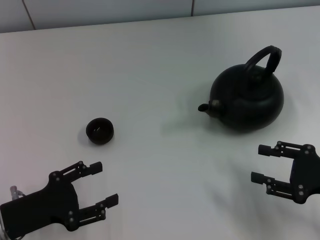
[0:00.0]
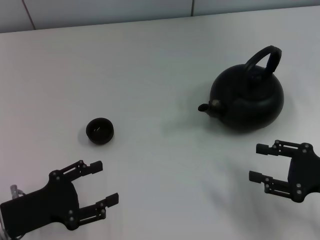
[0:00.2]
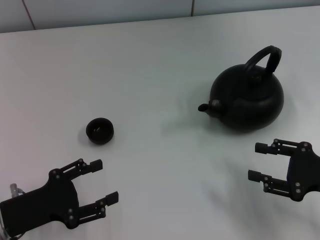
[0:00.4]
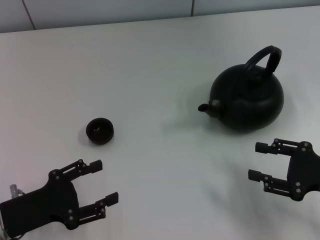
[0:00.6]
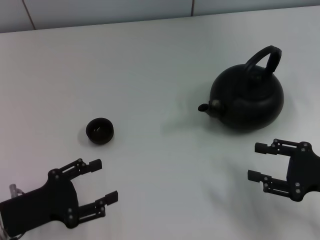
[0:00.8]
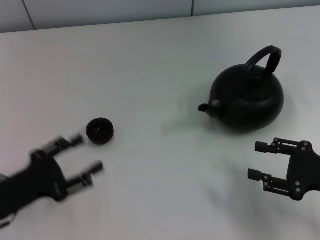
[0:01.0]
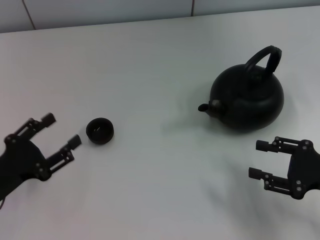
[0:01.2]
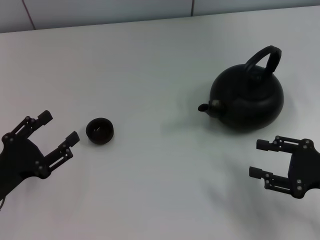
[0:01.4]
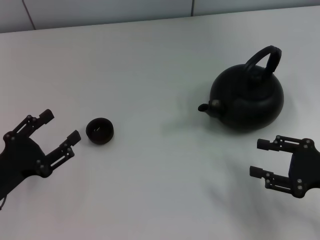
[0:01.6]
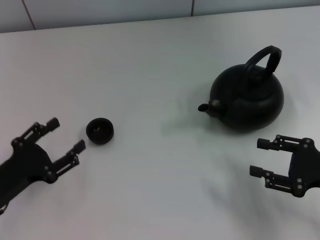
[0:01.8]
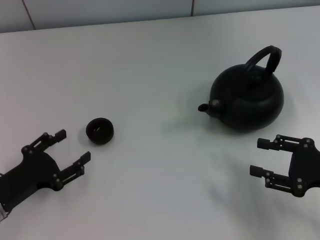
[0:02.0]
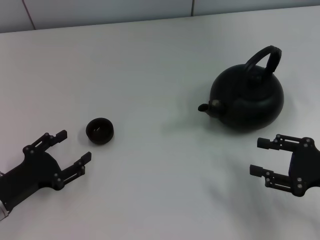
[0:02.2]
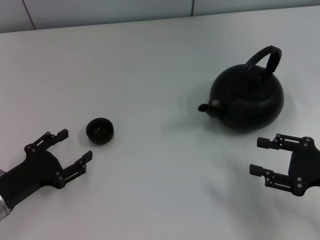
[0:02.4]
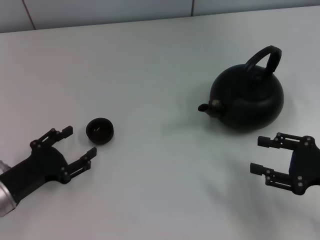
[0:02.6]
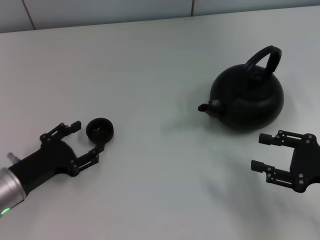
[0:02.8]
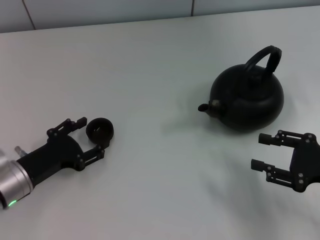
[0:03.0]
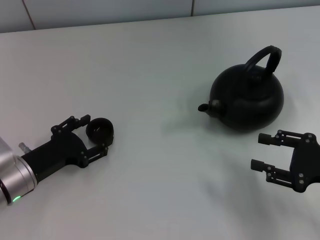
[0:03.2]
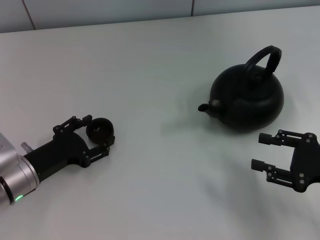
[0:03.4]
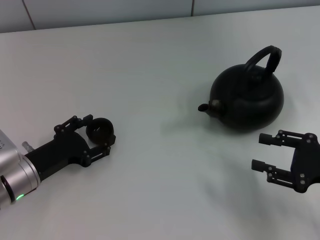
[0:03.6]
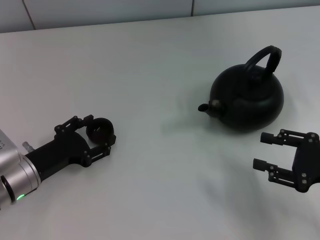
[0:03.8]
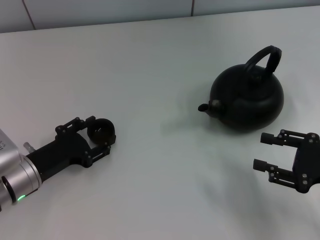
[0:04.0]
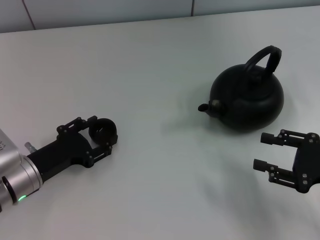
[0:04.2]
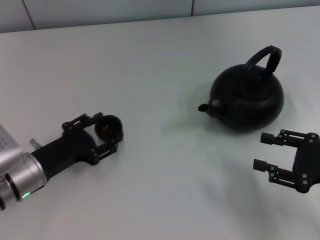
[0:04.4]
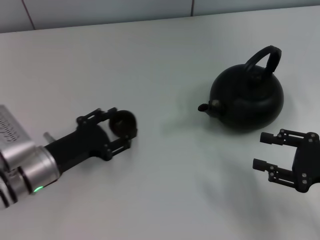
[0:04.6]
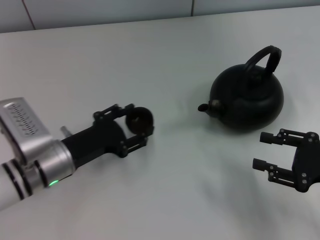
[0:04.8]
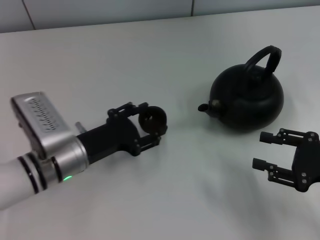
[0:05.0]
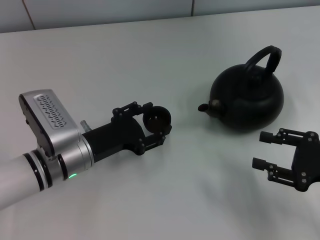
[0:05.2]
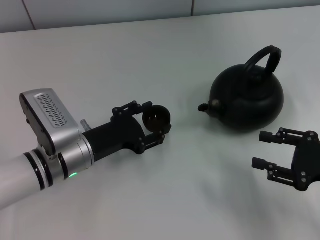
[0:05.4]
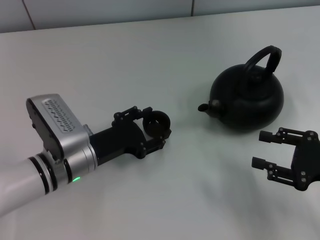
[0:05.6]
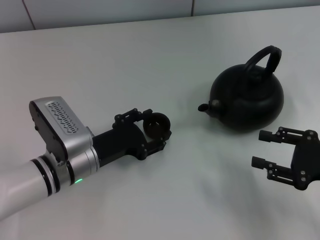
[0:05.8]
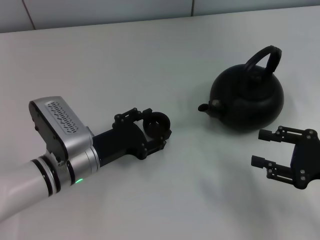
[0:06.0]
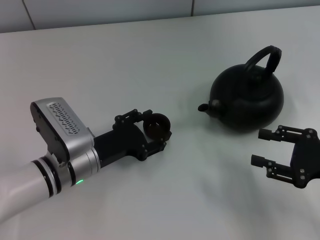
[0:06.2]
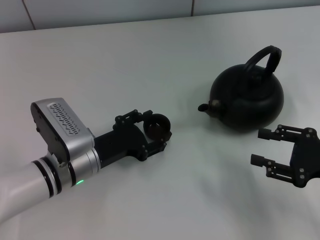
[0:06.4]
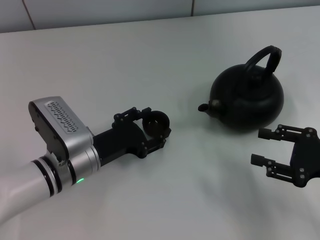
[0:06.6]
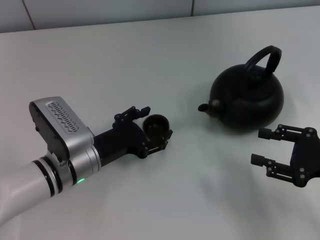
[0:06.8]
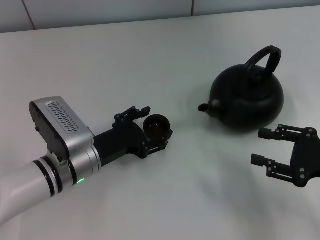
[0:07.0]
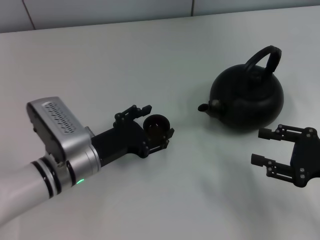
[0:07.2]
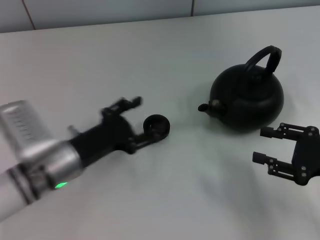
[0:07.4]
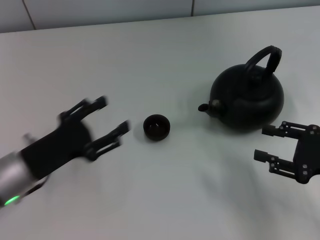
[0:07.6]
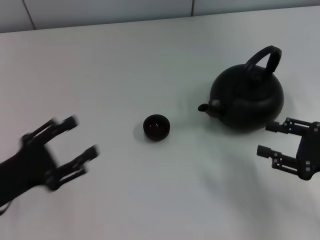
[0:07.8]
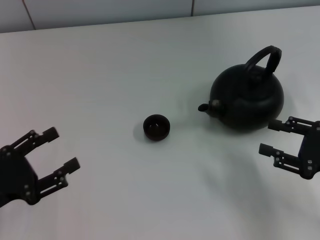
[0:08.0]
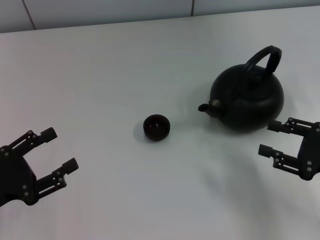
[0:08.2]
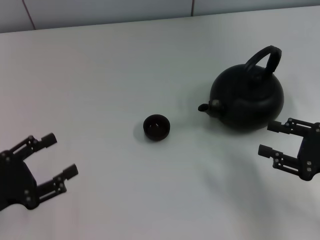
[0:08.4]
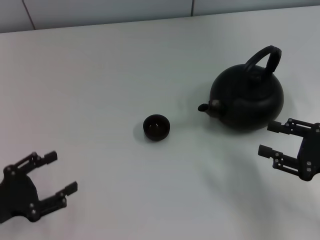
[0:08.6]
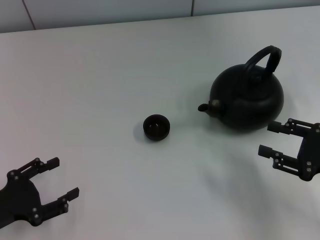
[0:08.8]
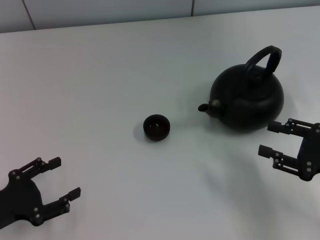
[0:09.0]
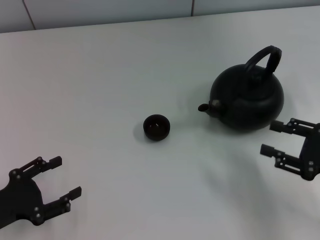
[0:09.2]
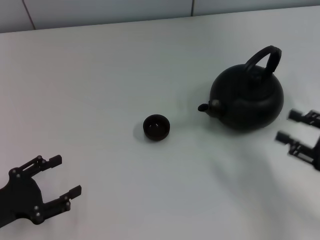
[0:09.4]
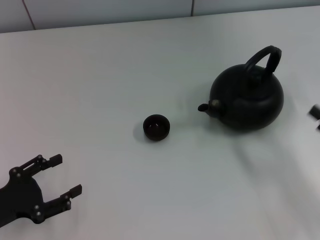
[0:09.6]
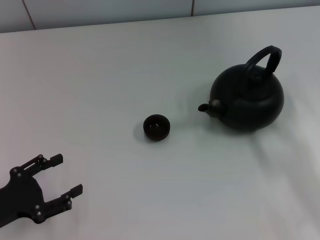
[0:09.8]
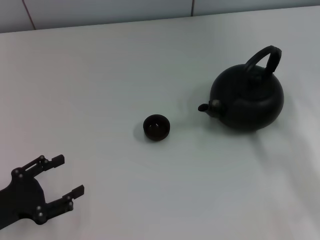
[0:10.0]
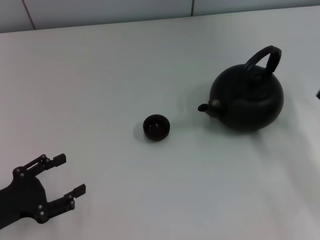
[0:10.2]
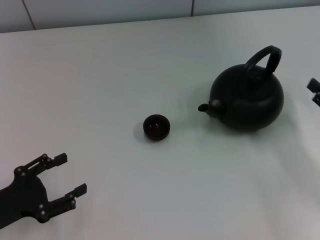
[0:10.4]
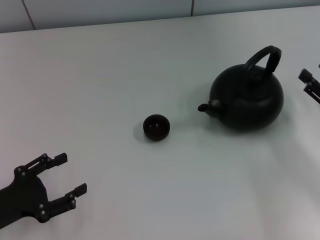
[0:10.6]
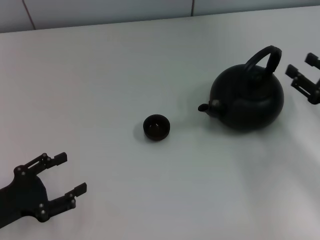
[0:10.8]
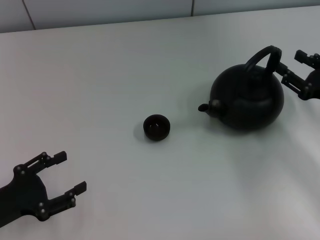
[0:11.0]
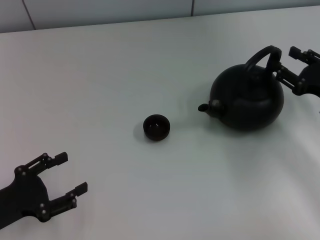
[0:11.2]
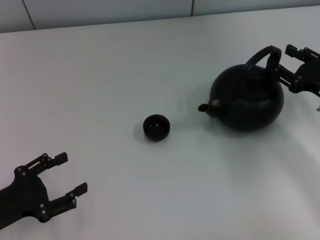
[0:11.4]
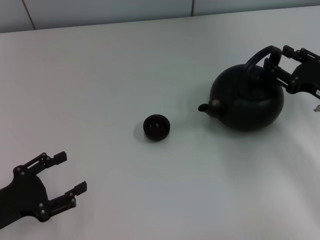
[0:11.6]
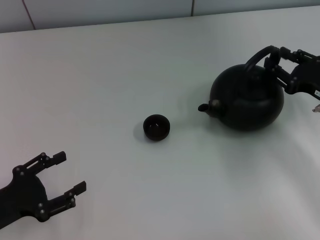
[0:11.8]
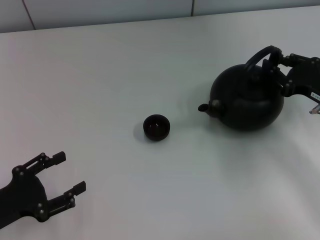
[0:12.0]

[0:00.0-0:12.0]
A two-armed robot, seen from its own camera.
Task of the whole recording: Grasp the handle of the teapot with one hand and pour tea into the teacup.
Step, 0:00.0 to 0:05.0: Pick up the teacup with the left gripper.
Step, 0:05.2 to 0:07.6: Place the teacup in the center of view with the left gripper.
0:01.6 to 0:03.0: The left gripper moves some 5 cm.
0:03.0 to 0:04.4: The grippers stay close to where they were, moving slightly.
0:04.4 to 0:06.0: The left gripper is displaced to the right by approximately 10 cm.
0:06.0 to 0:07.6: The left gripper moves to the left, roughly 10 cm.
0:07.6 to 0:09.0: The left gripper shifts about 10 cm to the left and backward.
0:10.4 to 0:12.0: The right gripper is displaced forward by roughly 10 cm.

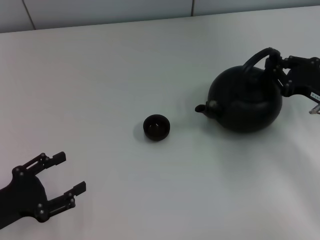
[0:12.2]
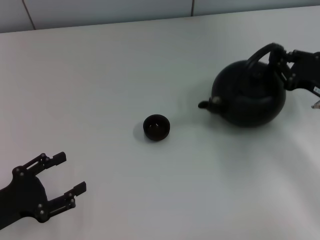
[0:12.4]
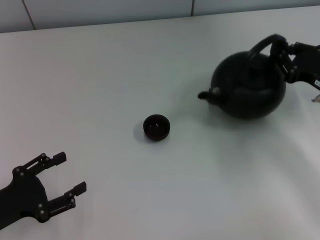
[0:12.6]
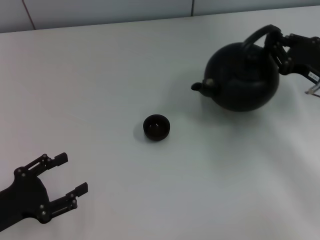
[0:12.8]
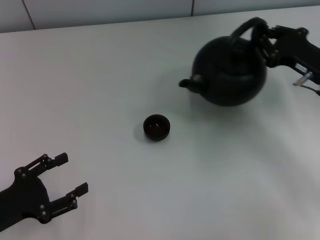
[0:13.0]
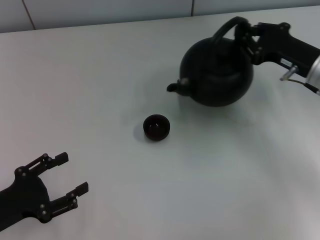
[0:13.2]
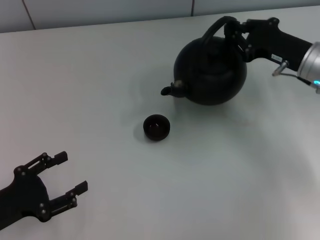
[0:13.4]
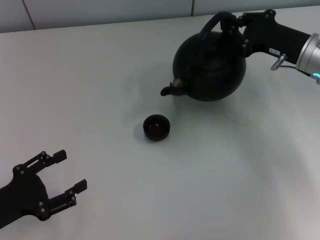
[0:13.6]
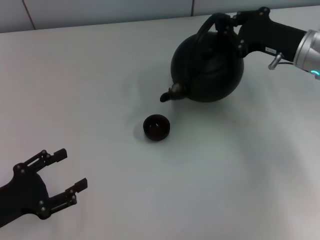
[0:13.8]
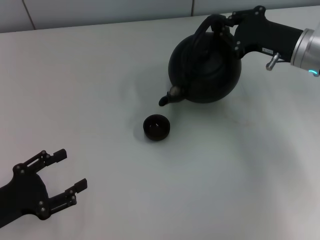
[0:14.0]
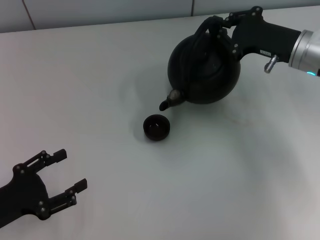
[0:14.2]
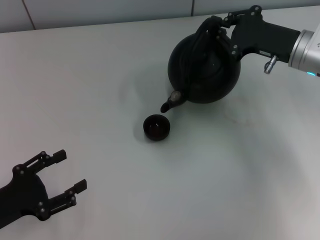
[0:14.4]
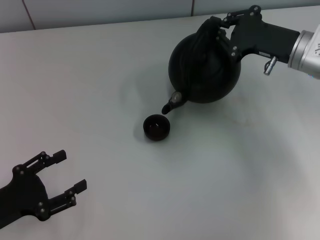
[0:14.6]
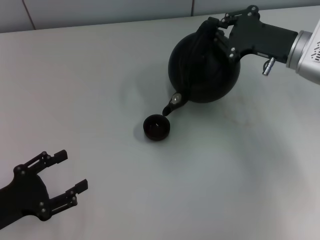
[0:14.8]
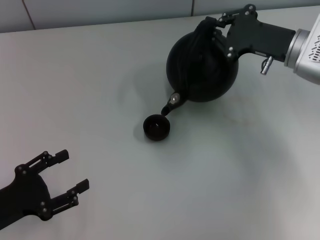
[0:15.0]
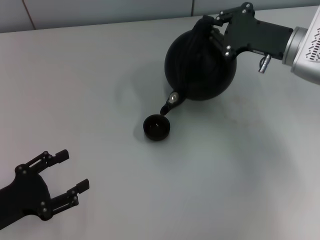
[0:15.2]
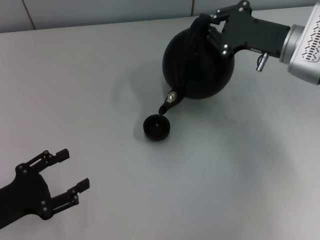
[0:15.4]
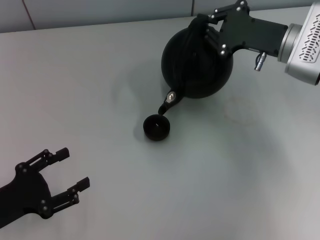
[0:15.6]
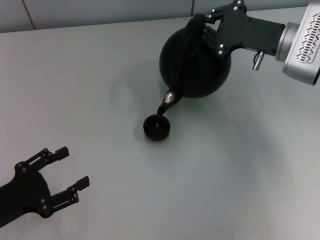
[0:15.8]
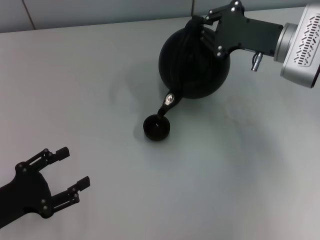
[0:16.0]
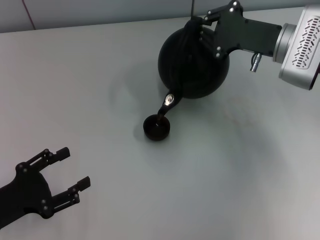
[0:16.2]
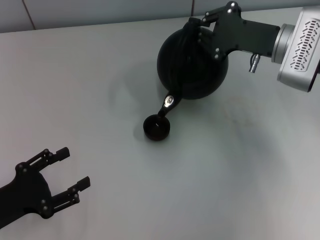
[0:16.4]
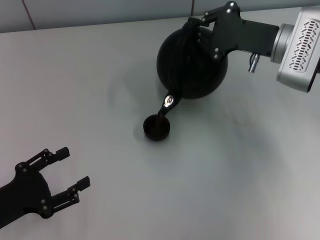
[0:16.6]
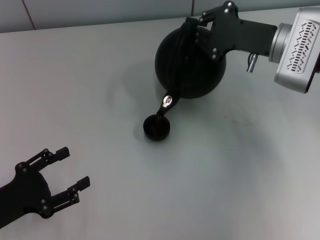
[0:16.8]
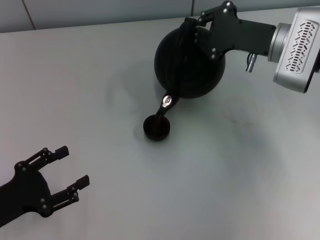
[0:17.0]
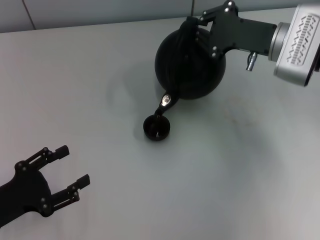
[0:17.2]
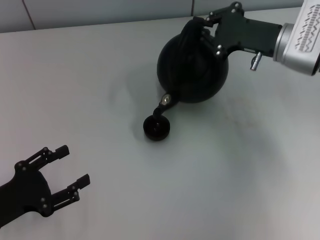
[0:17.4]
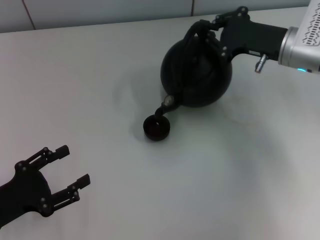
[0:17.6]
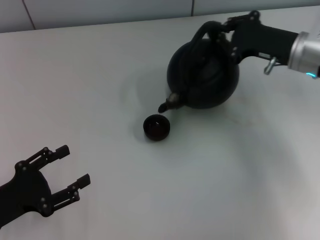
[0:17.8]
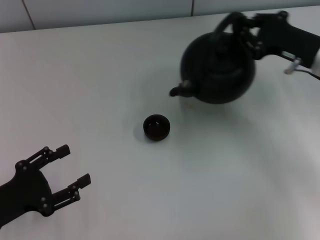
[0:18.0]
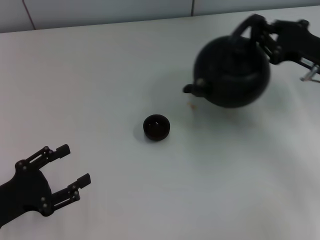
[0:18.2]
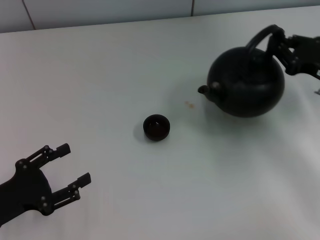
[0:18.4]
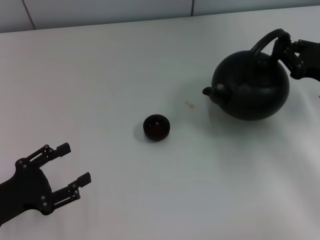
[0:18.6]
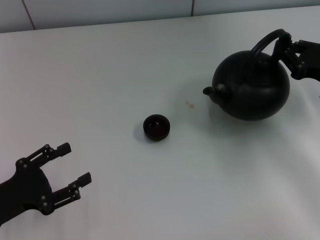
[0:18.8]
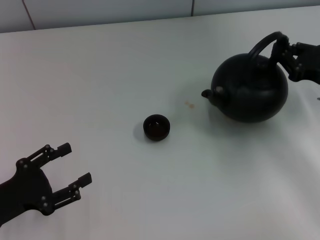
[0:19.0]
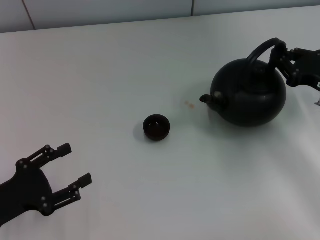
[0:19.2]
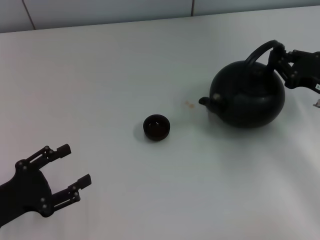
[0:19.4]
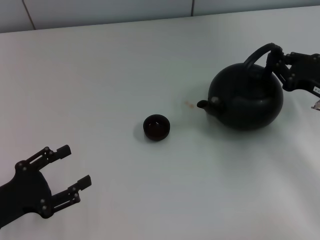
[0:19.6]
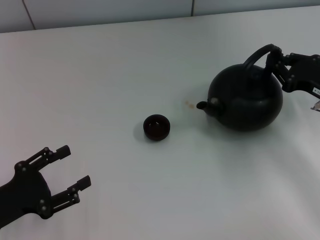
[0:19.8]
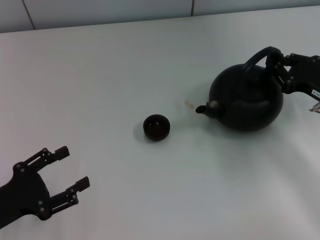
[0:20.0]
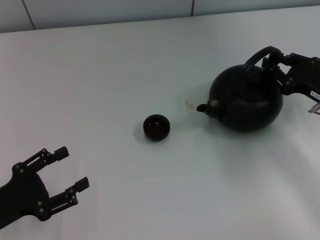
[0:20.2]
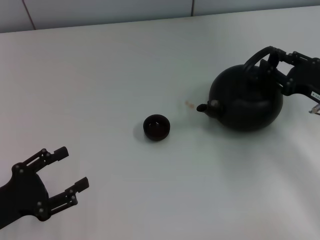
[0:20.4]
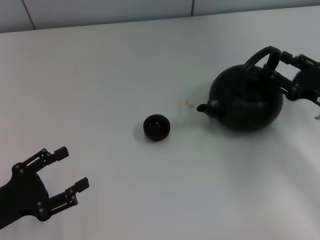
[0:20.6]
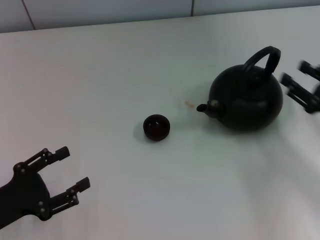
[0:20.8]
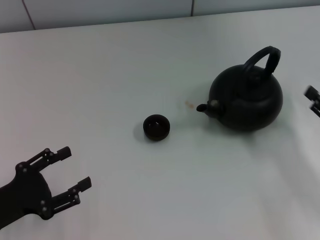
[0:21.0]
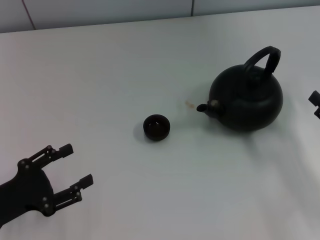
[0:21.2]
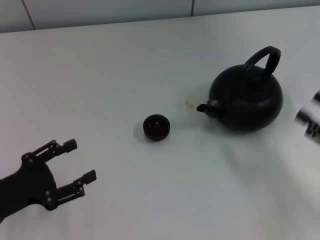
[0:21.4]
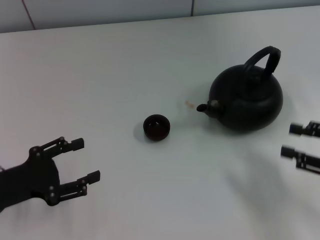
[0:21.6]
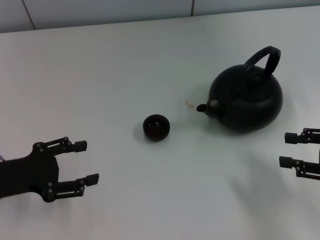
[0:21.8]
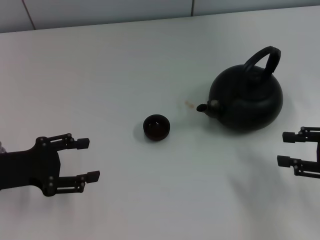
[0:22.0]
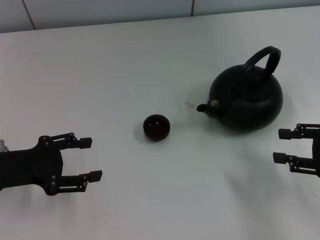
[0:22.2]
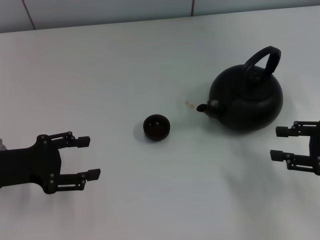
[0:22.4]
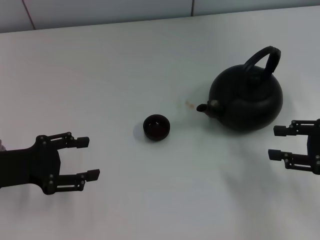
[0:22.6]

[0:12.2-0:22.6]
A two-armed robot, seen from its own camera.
Task of the whole recording: Grasp the handle of the teapot with one hand and pour tea into the teacup.
Step, 0:18.2 to 0:20.8: Put down the teapot with the right gripper.
0:12.2 to 0:13.6: The right gripper travels forward and to the left by roughly 10 cm, and closes.
0:15.2 to 0:16.6: The grippers make only small movements.
0:16.6 to 0:18.2: The right gripper shifts some 10 cm to the right and backward.
0:18.2 to 0:19.6: The grippers make only small movements.
0:19.6 to 0:21.2: The right gripper moves backward, roughly 10 cm, and opens.
0:21.2 to 0:22.6: The right gripper moves roughly 5 cm. Meanwhile the left gripper travels forward by approximately 5 cm.
